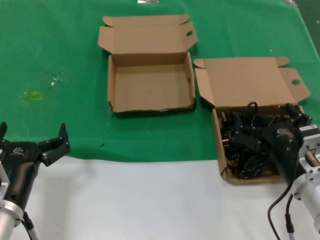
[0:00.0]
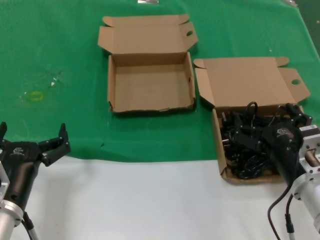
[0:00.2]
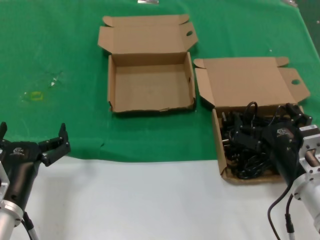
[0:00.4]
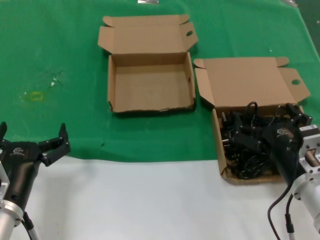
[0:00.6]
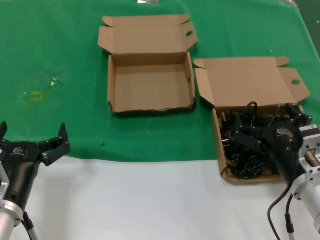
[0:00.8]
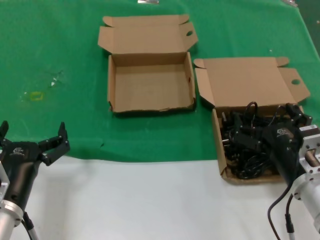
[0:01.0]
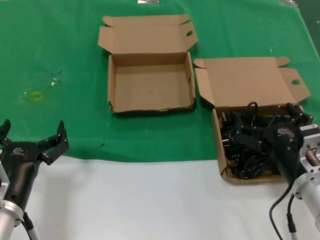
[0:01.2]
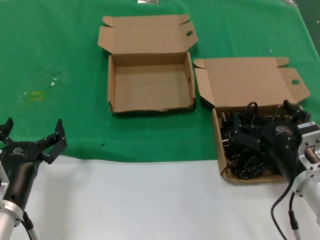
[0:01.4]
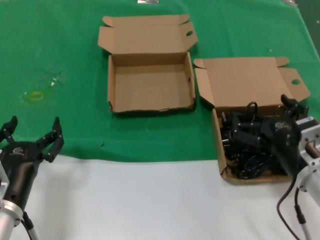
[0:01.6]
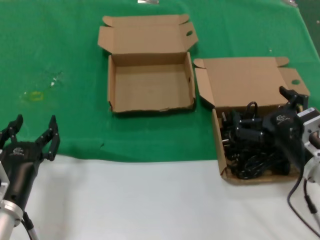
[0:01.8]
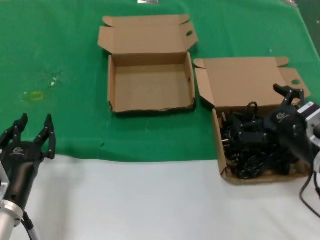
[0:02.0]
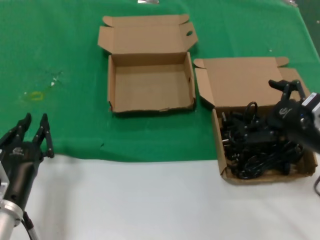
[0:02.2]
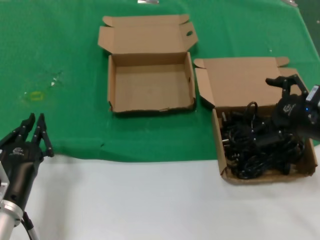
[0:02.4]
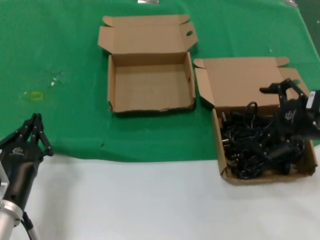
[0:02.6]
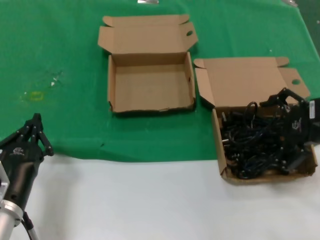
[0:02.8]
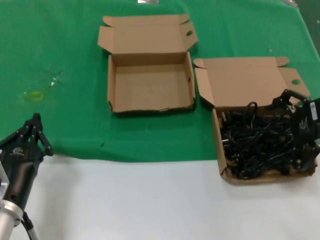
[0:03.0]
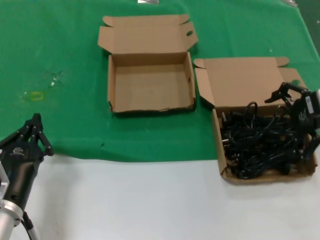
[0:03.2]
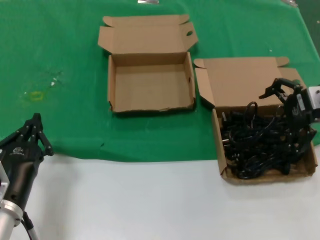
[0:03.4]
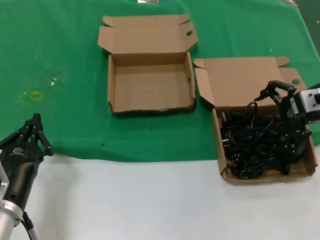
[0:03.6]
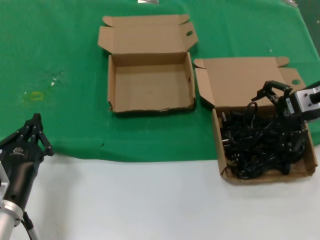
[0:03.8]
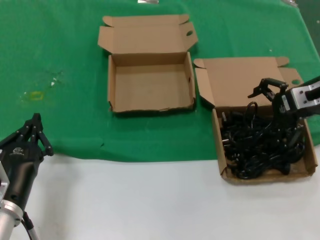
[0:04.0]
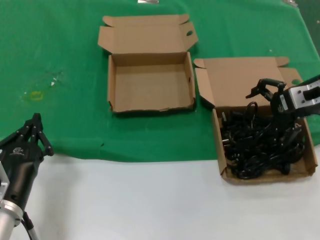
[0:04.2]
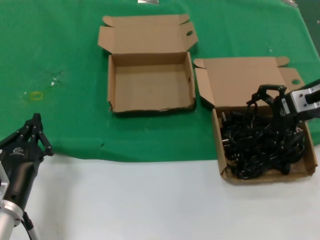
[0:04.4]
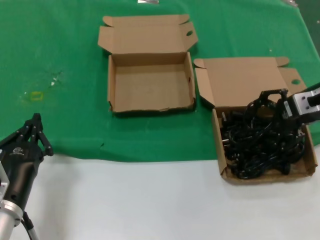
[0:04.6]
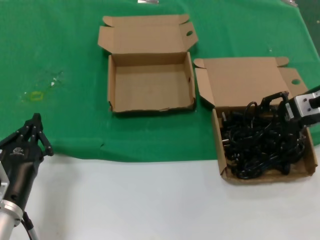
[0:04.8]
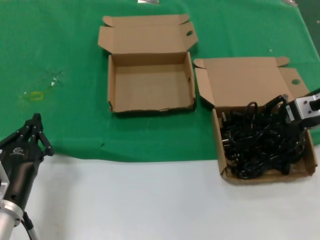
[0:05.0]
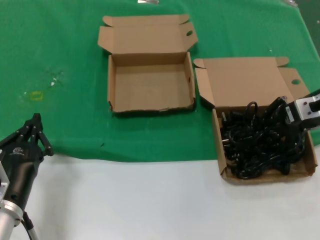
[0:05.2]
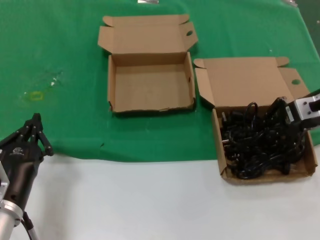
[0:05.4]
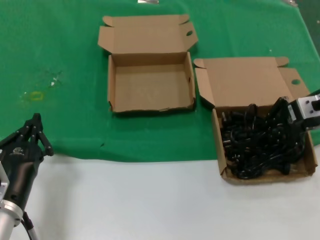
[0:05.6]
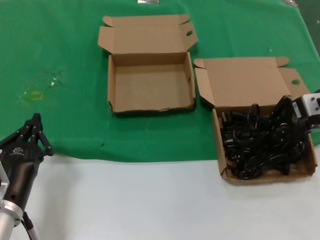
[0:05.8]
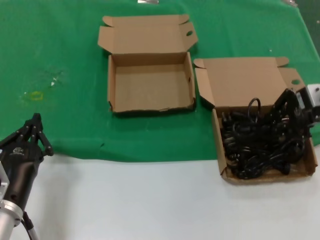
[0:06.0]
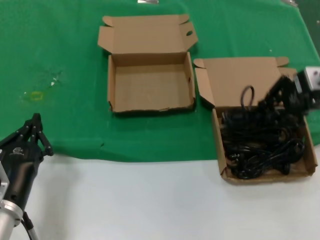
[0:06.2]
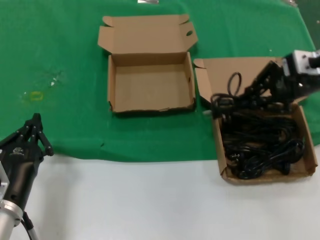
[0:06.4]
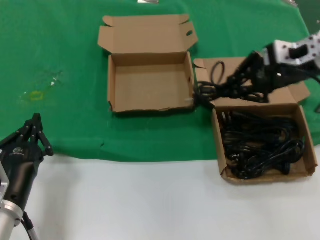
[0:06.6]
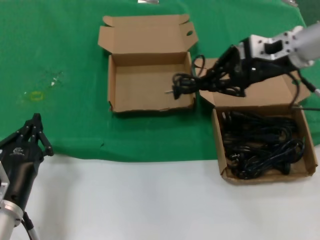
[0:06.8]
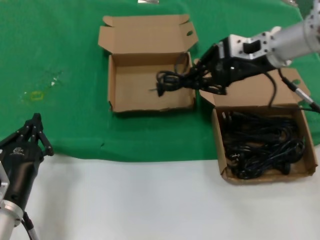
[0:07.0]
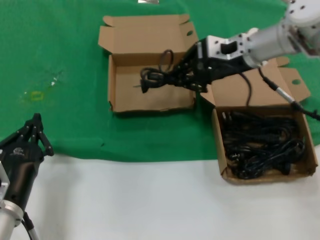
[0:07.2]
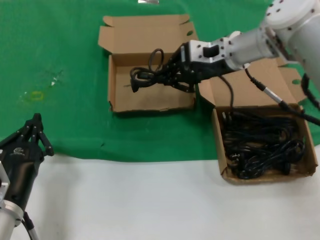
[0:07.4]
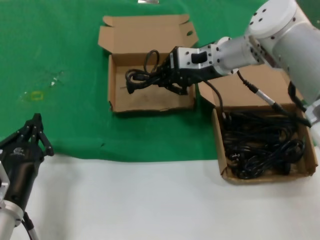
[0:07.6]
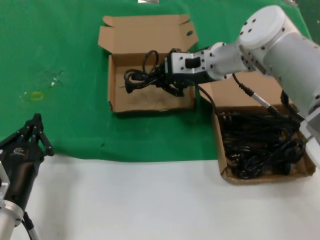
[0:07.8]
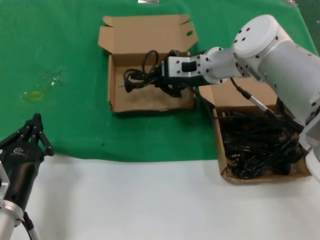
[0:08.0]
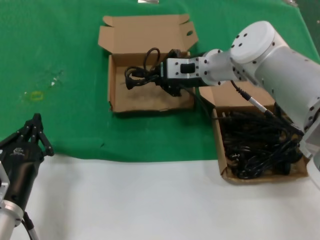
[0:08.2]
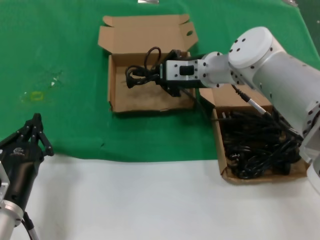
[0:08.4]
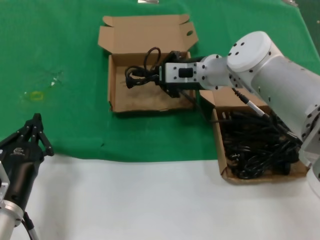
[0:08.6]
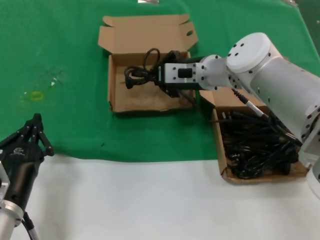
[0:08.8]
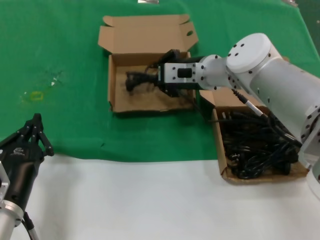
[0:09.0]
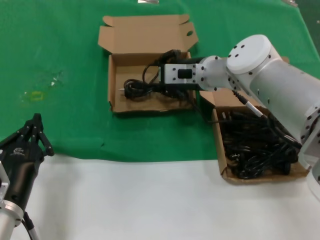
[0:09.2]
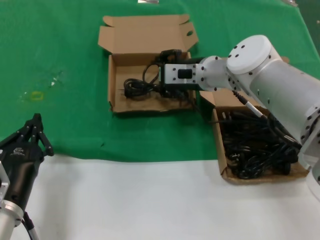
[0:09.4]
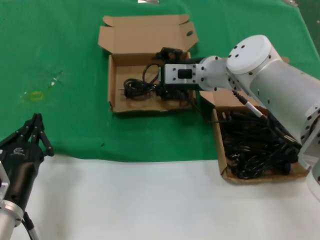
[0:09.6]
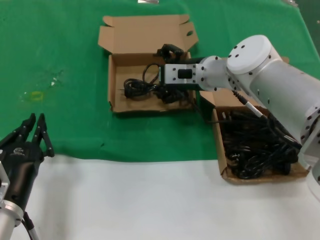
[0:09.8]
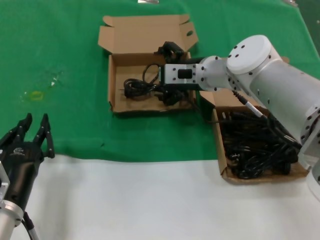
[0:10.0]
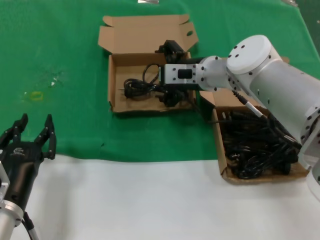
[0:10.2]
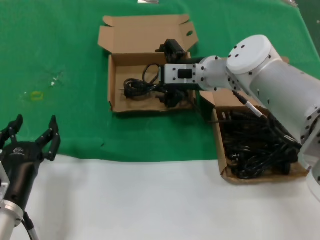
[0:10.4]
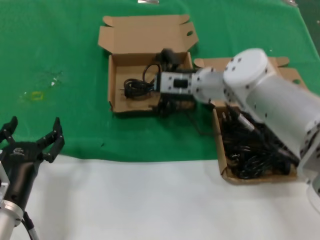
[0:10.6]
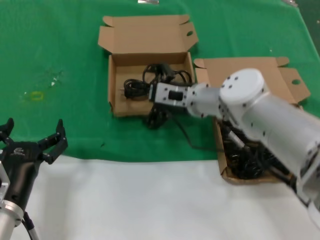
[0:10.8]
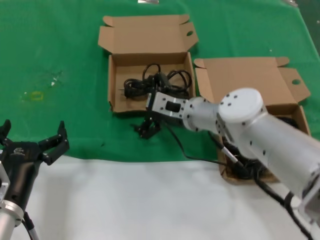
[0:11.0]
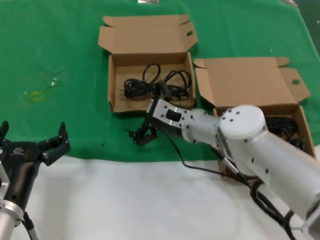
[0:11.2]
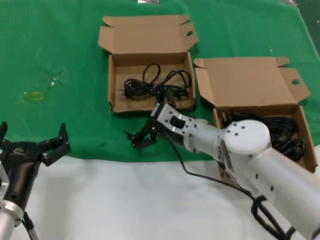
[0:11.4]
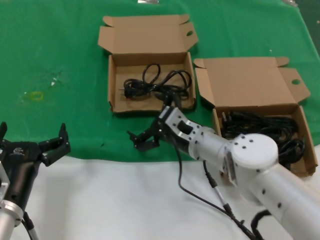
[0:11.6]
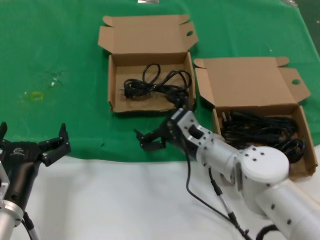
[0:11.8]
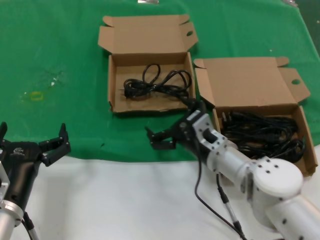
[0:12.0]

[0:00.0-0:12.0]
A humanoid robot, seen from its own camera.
Task of the whole recording: take the parts from the box containing them and put them into an empty box.
Step, 0:00.0 to 0:05.0: Grasp the data cable.
Step, 0:05.2 to 0:09.0: Place the data cable in the another box.
0:00.0 to 0:01.6: The hands make only small movements.
0:01.6 to 0:03.0: The right hand travels upward, to the right and forward by approximately 20 cm.
0:03.0 to 0:04.4: The right hand is displaced forward by some 10 cm.
0:04.4 to 0:06.0: There are only small adjustments of the hands.
0:06.0 to 0:07.6: The right hand moves to the left and forward, approximately 25 cm.
0:07.6 to 0:09.0: The right hand moves downward, about 5 cm.
0:09.0 to 0:10.4: Neither hand changes place.
0:10.4 to 0:12.0: The right hand heads downward and backward, covering roughly 20 cm.

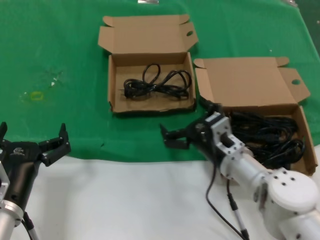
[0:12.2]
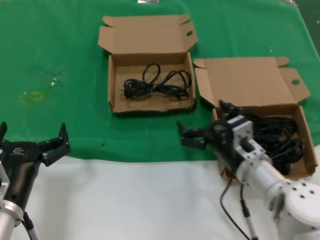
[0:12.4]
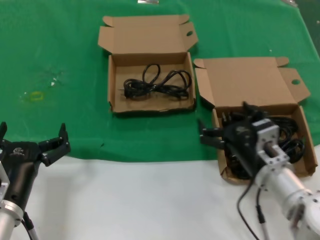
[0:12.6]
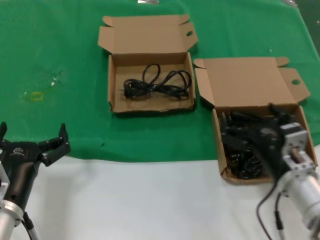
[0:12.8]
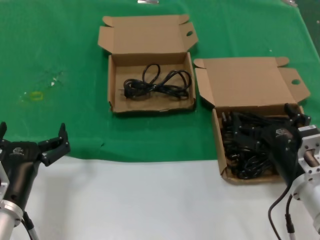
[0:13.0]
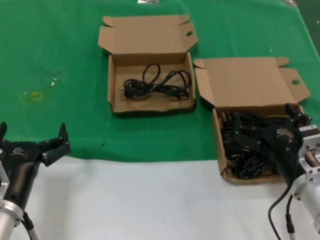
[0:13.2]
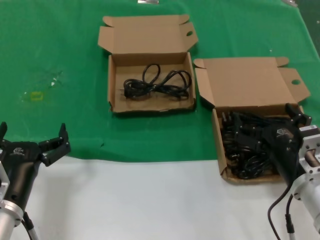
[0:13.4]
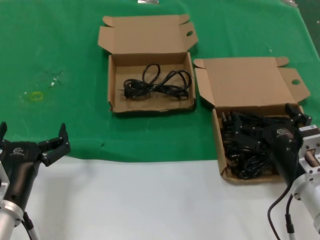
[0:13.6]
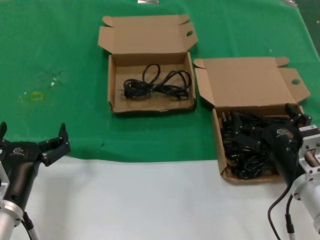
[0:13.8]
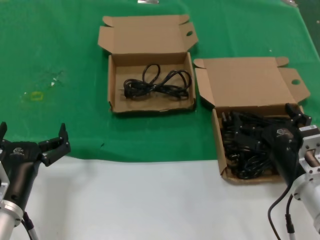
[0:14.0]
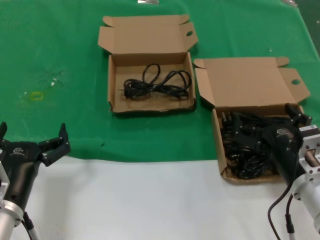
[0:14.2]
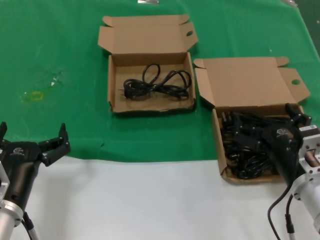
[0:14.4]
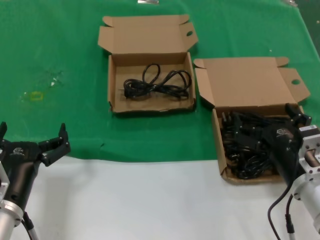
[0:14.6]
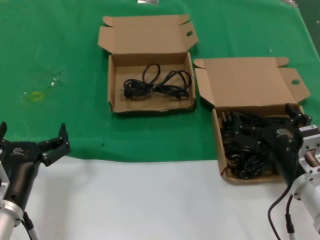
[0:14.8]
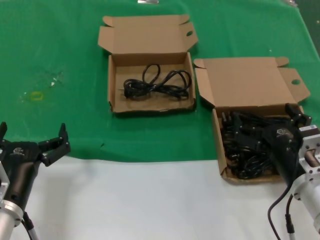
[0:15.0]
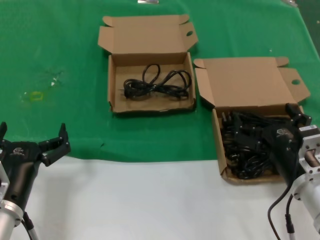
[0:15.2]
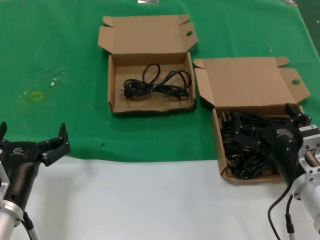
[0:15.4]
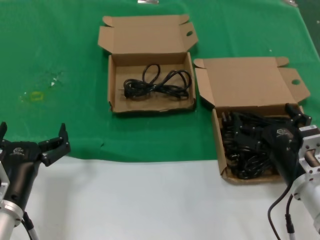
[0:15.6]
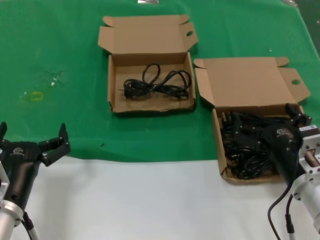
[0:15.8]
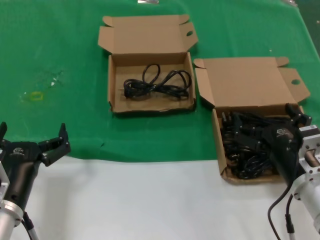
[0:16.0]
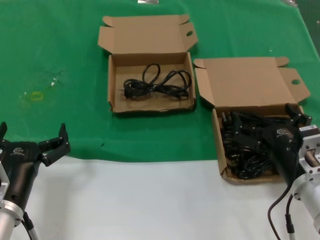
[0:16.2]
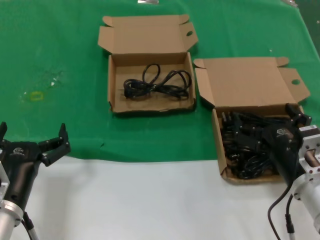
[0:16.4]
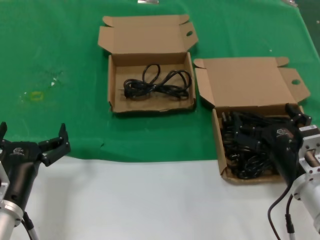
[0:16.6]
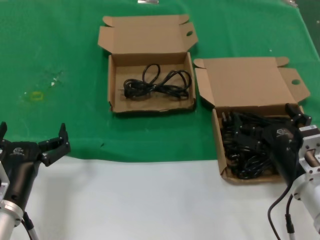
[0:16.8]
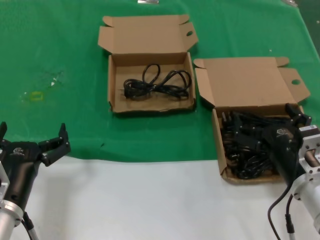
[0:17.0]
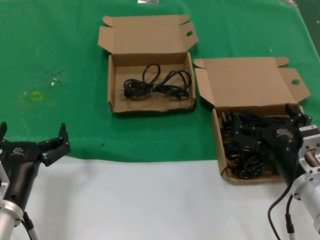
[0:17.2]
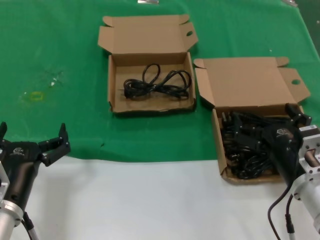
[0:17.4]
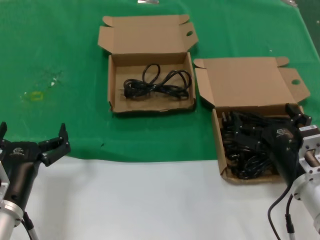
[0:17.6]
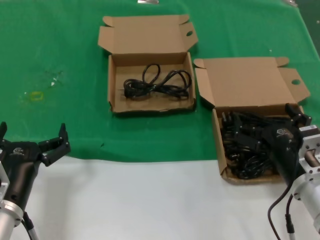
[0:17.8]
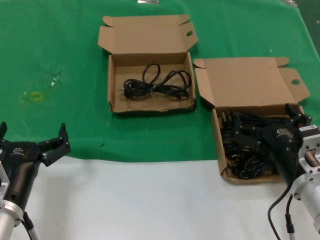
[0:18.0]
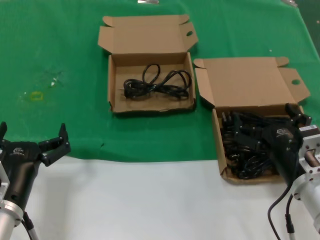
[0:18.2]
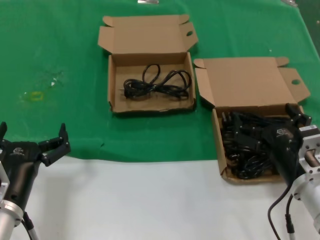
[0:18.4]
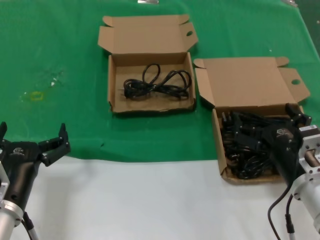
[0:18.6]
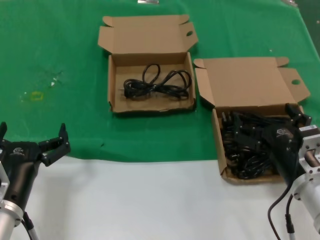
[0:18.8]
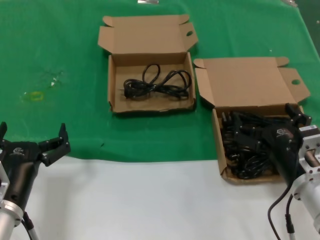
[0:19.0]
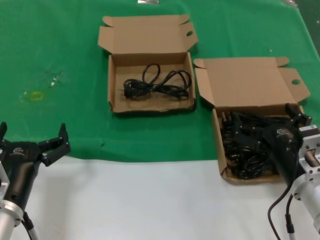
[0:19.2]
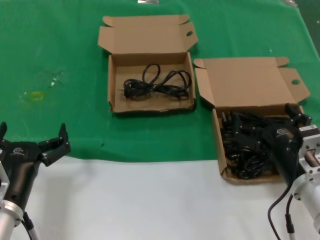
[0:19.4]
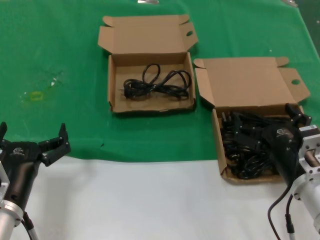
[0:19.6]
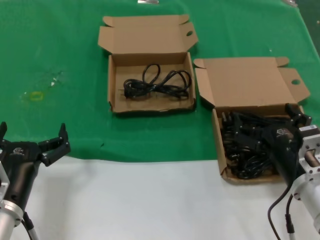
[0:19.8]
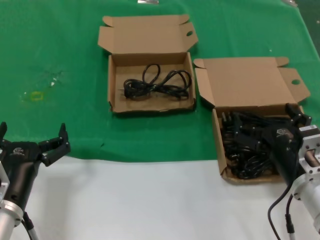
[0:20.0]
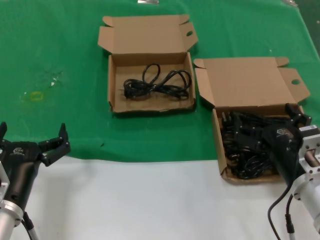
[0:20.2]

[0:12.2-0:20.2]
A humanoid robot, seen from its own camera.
Task of the whole recording: take the parts from the box containing them and put them into an empty box.
0:12.2 to 0:13.8: The right hand shifts some 15 cm to the right and backward.
0:13.8 to 0:20.2: Both hands stay put.

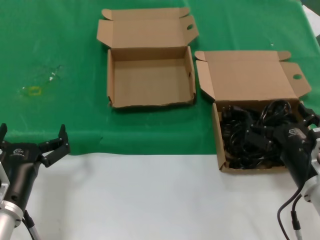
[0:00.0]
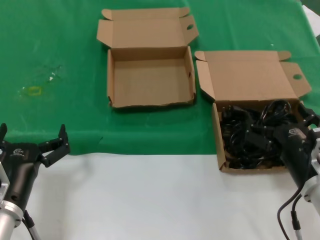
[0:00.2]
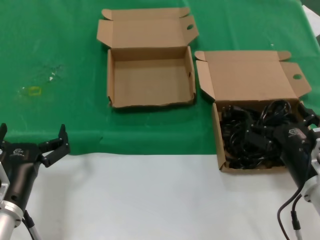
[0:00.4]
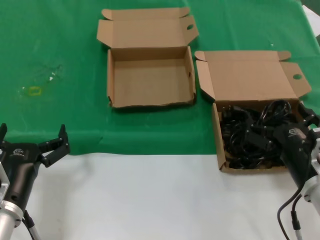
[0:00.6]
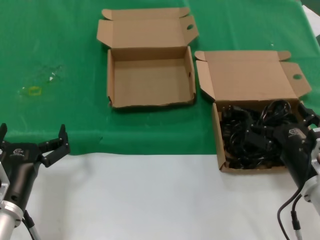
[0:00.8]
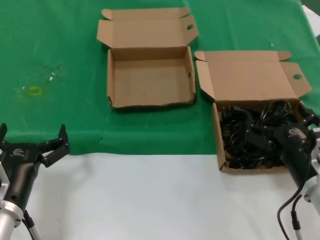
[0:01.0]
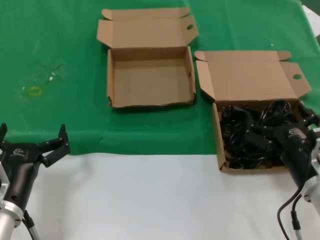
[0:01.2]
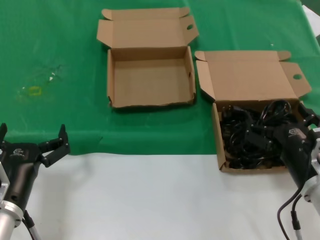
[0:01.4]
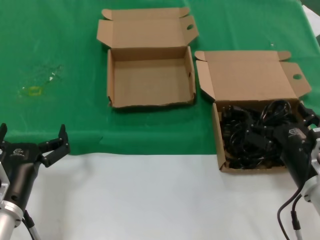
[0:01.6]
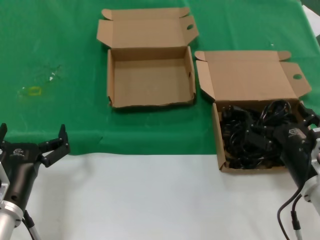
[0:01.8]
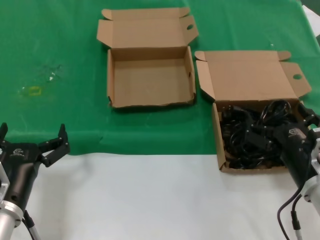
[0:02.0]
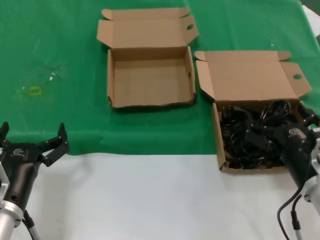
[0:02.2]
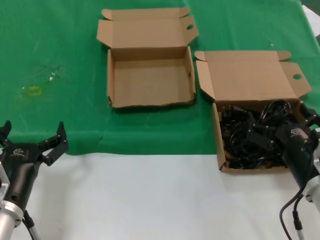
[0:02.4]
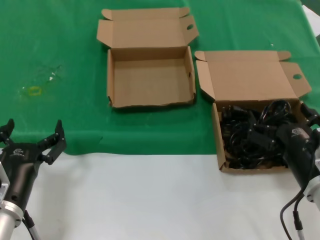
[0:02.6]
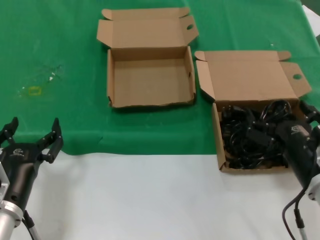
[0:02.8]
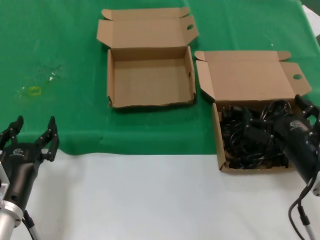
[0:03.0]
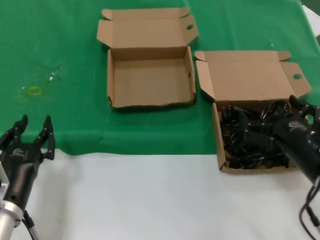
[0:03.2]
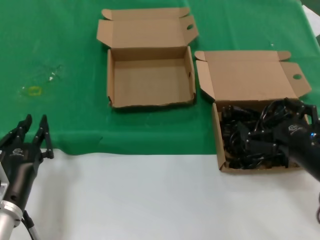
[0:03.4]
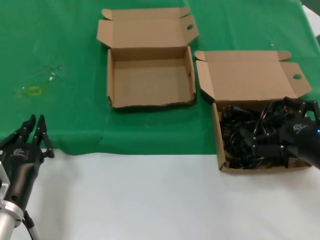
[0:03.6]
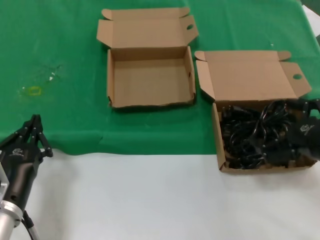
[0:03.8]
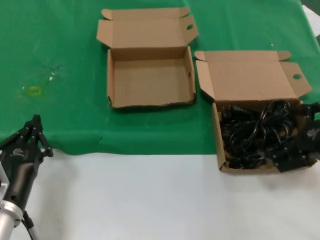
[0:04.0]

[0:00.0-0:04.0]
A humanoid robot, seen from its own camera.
Task of the whole recording: take the parts from the box containing them and put them into an empty box.
0:00.0 to 0:02.6: Neither hand changes place.
0:02.6 to 0:04.0: The right hand heads upward and to the right, covering approximately 15 cm.
